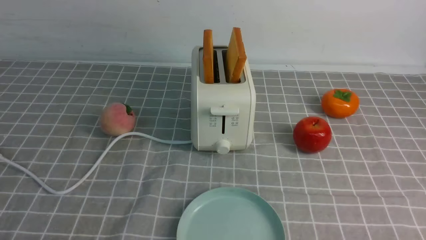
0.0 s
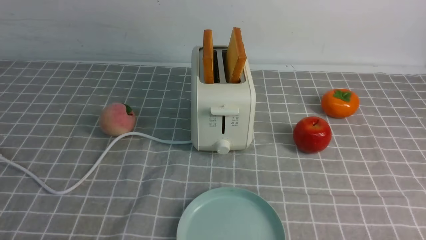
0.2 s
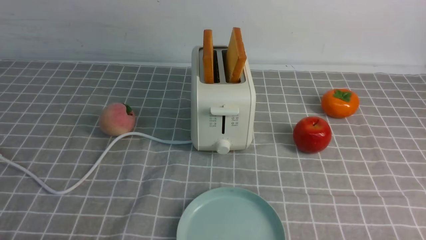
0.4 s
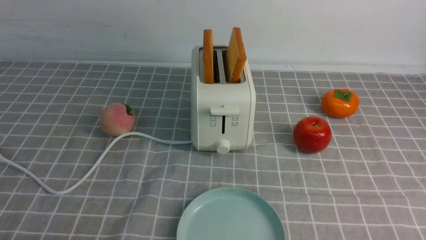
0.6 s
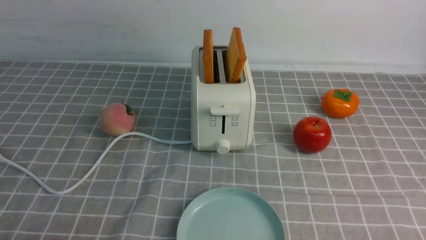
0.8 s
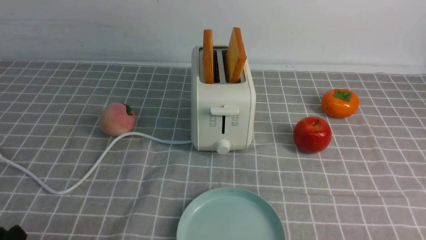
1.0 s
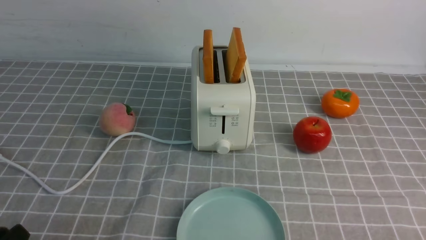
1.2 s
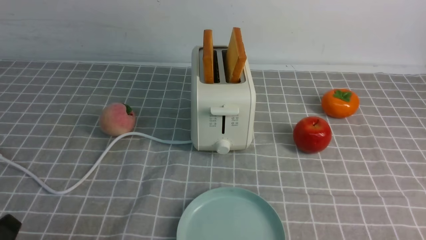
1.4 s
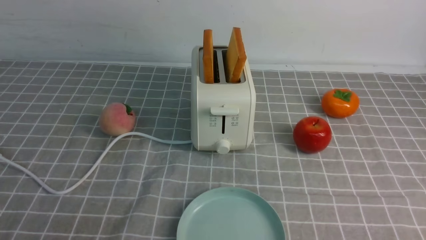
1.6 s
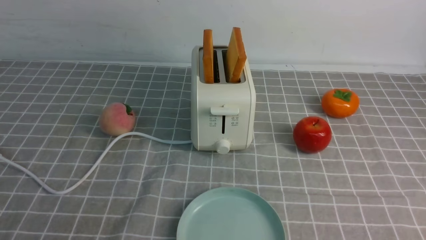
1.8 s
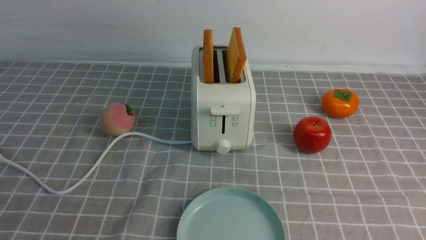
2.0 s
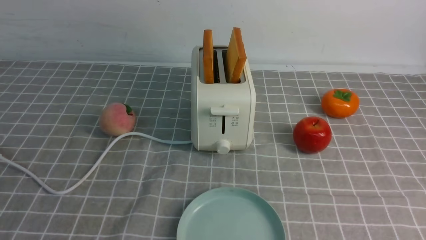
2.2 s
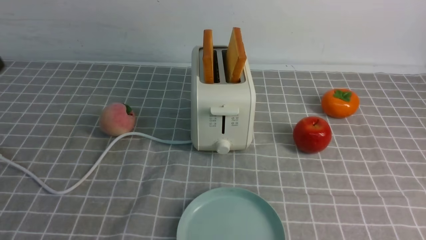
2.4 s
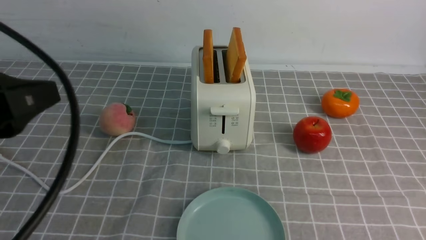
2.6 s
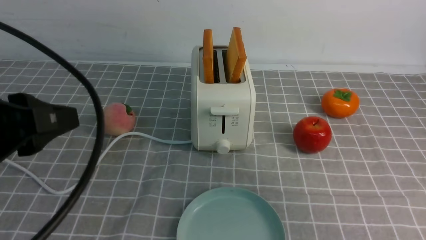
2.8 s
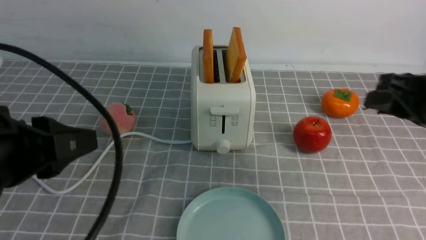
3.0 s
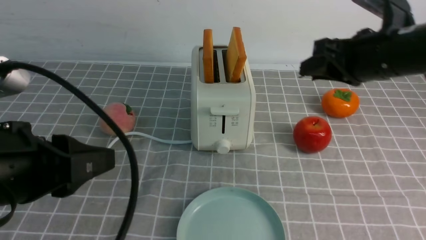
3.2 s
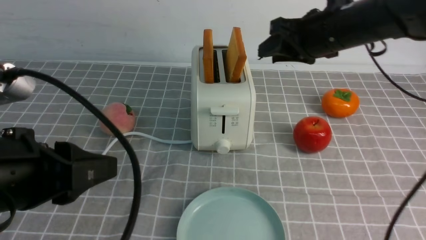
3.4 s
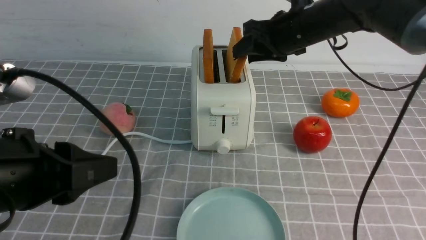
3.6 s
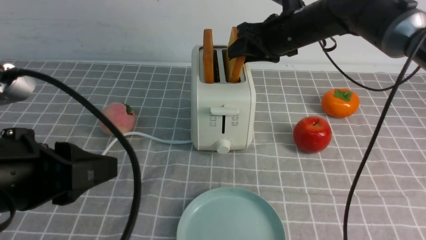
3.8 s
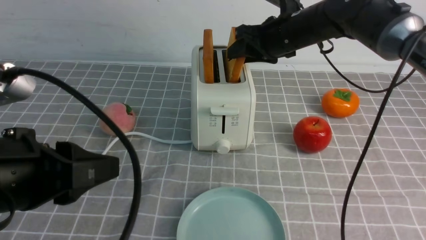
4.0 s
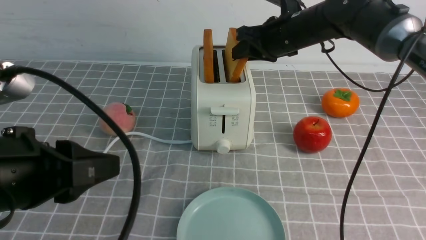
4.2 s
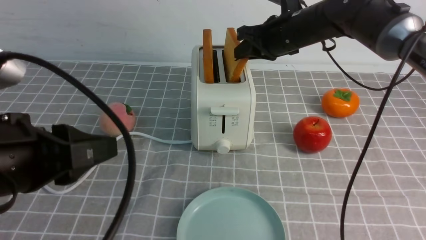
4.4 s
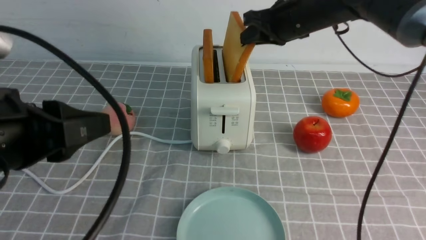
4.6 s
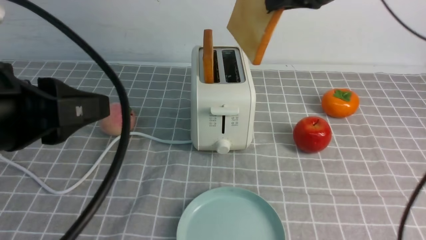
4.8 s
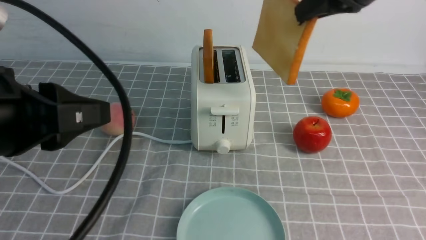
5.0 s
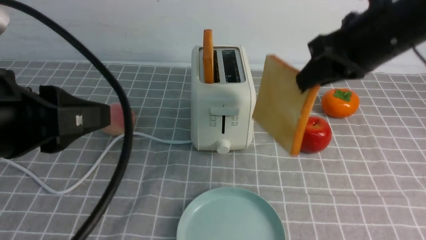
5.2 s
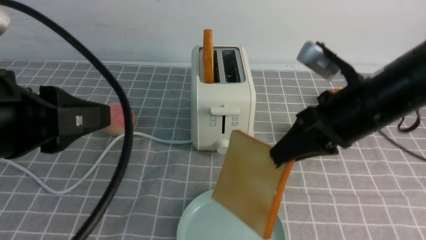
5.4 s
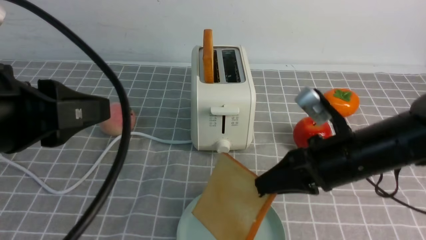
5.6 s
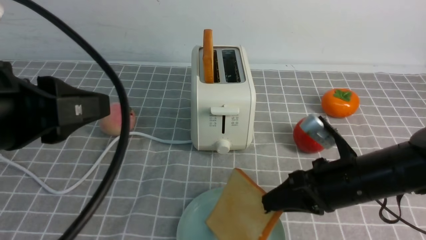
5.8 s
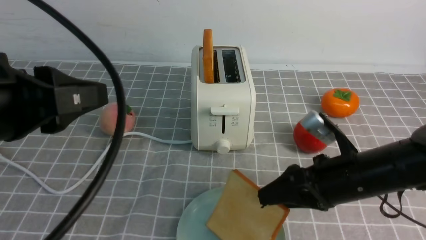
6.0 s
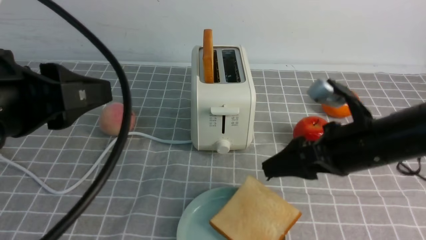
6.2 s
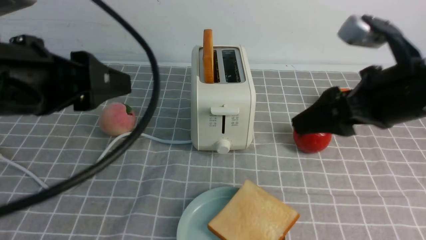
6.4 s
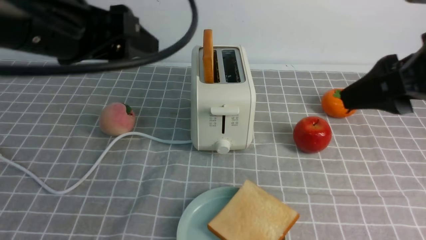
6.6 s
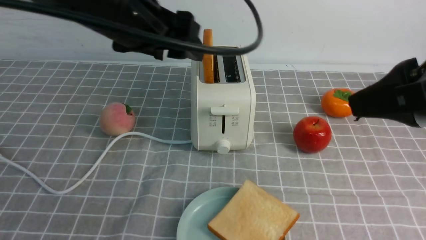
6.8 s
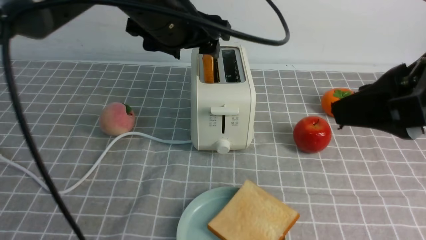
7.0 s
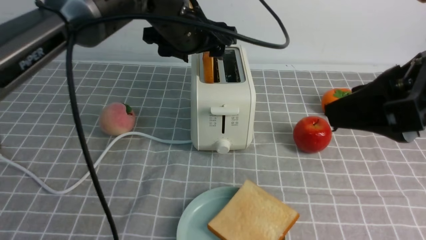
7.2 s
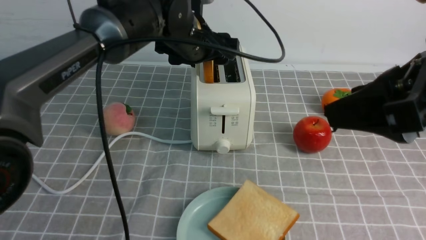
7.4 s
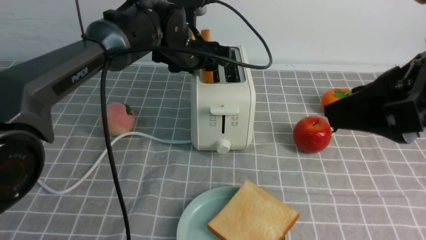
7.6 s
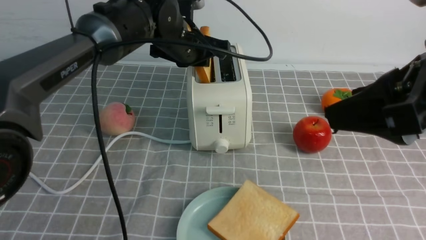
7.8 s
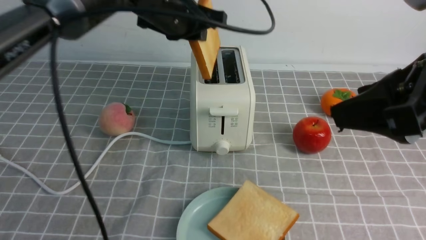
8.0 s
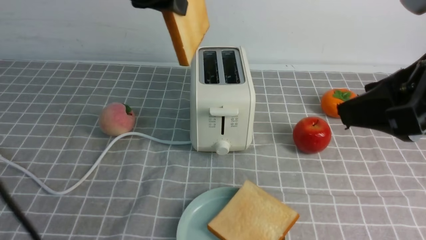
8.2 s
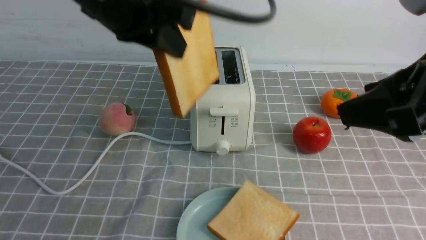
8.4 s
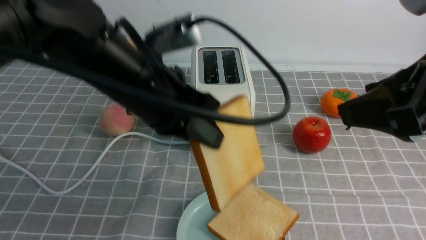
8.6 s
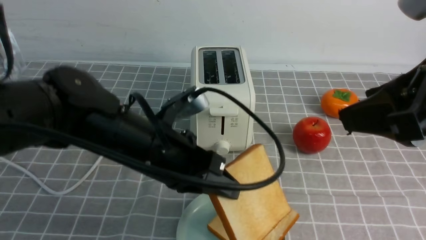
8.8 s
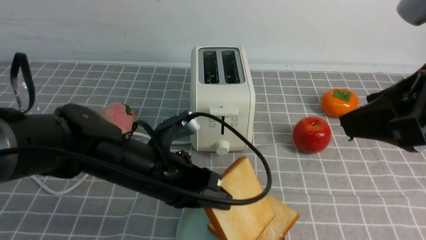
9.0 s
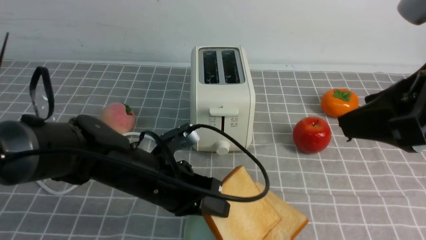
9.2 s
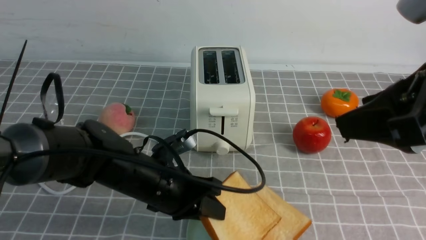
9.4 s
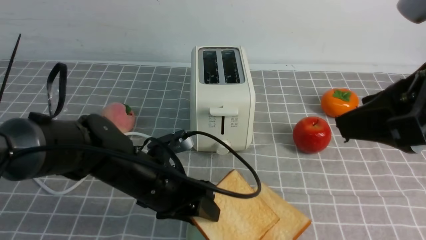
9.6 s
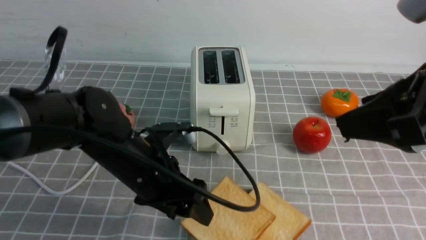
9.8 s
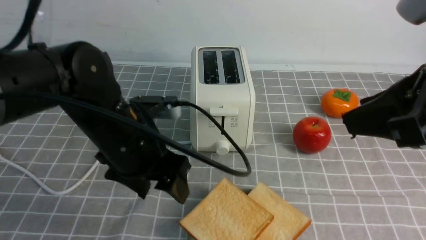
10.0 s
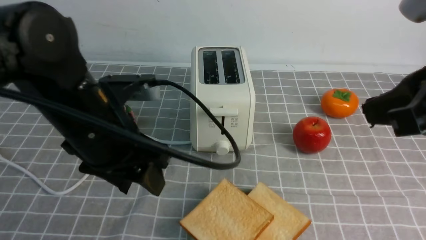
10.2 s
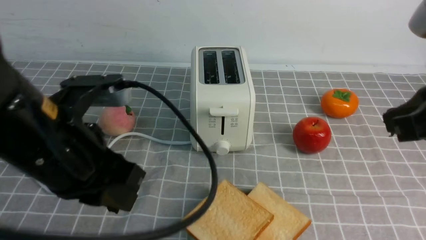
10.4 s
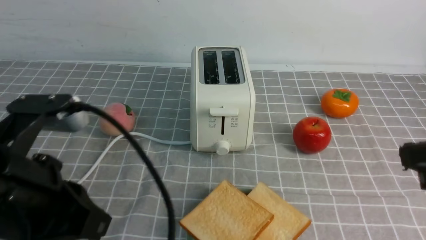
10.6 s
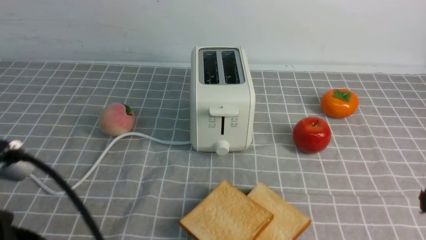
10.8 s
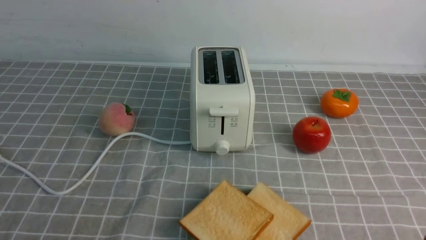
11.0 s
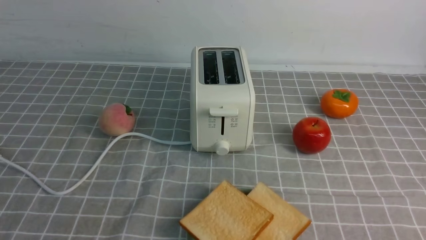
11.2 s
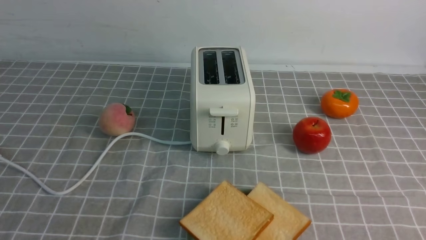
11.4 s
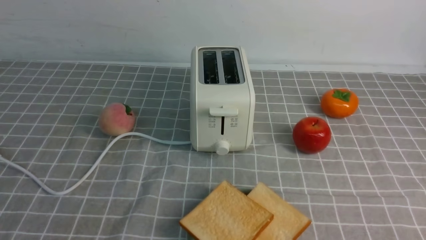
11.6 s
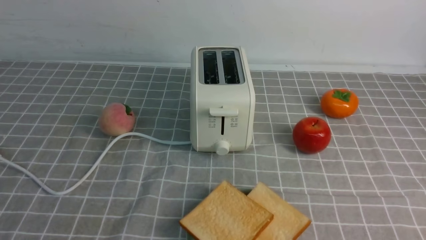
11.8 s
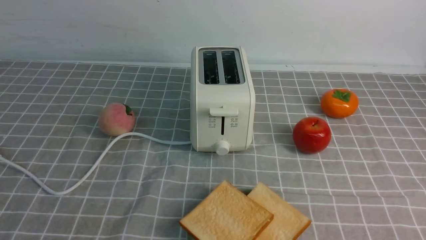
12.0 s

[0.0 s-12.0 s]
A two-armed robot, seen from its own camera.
Task of the whole recording: take toasted bread from bread machine on grey coffee table place on plate.
Step, 0.0 to 4.6 s: use the right arm to take out a slice of bread.
Step, 5.0 to 6.2 s: use the right arm to put a slice of bread into the plate.
Step, 6.4 to 8.0 s: use the left arm to take out a slice of bread.
Step, 8.4 to 10.0 s: use the left arm to put a slice of bread into the empty plate.
1.6 to 3.0 s: The left gripper travels upward, forward and to the right by about 15 cm. The right gripper travels forward and upward by about 25 cm.
3.0 to 4.4 s: The right gripper heads forward and to the left, covering roughly 25 cm.
4.4 to 6.0 s: The right gripper is displaced backward and downward by approximately 25 cm, and opens up.
6.0 to 7.6 s: The left gripper heads forward and to the right, covering approximately 30 cm, and opens, then closes again. The right gripper shifts about 20 cm upward and backward.
7.6 to 9.0 s: The left gripper travels backward and downward by roughly 20 cm, and closes its fingers.
9.0 to 10.4 s: The left gripper goes about 15 cm upward, backward and to the left, and opens, then closes again. The right gripper closes up.
10.4 to 12.0 s: The right gripper goes some 20 cm downward, backward and to the right. The left gripper heads backward and to the left, covering about 20 cm.
